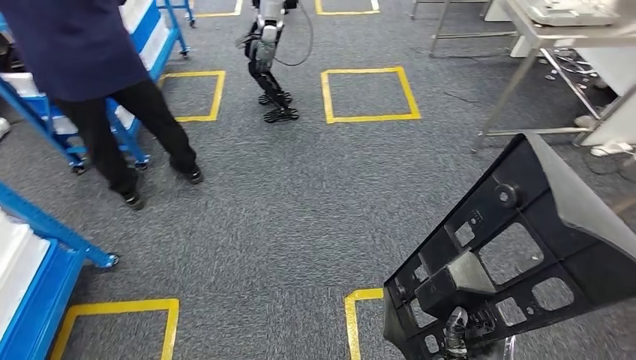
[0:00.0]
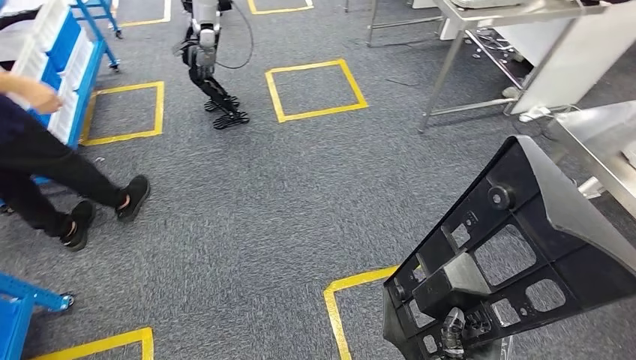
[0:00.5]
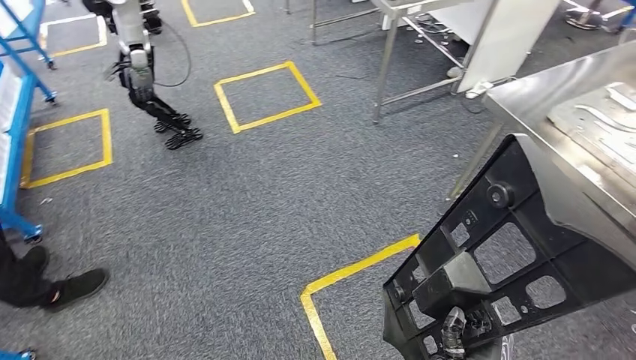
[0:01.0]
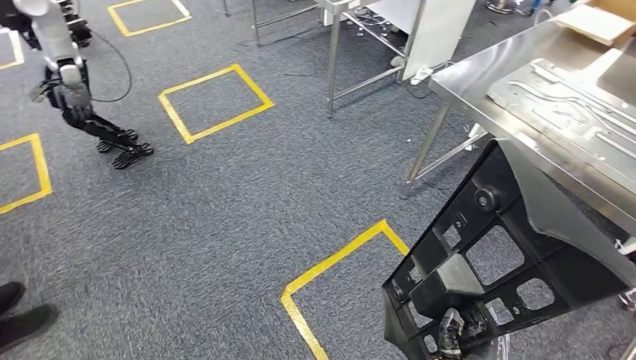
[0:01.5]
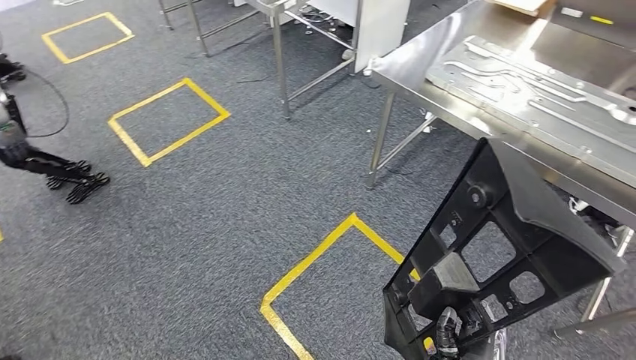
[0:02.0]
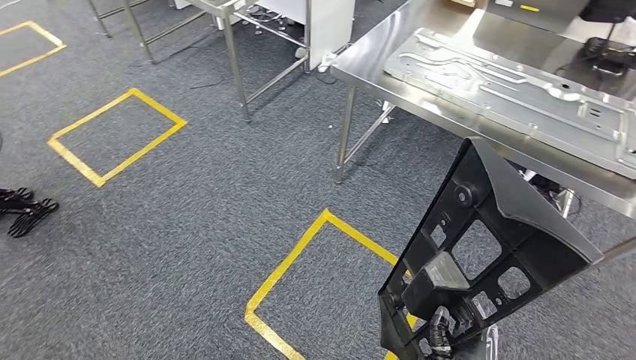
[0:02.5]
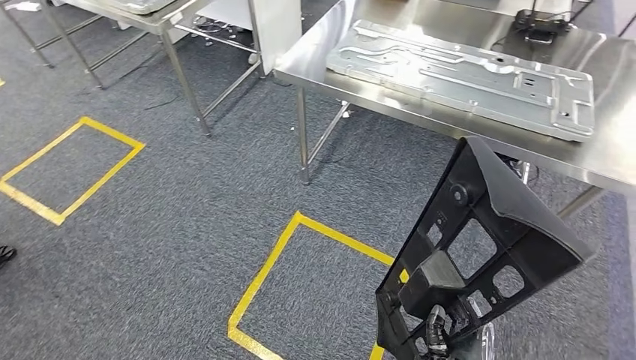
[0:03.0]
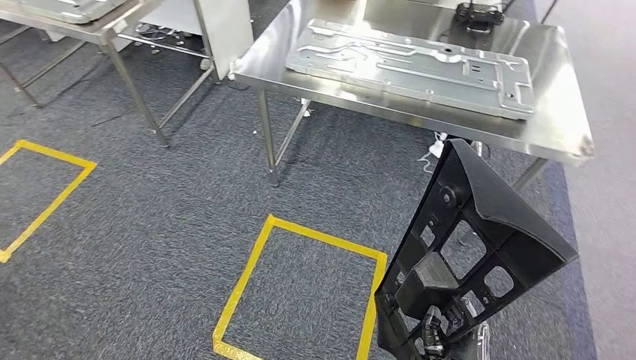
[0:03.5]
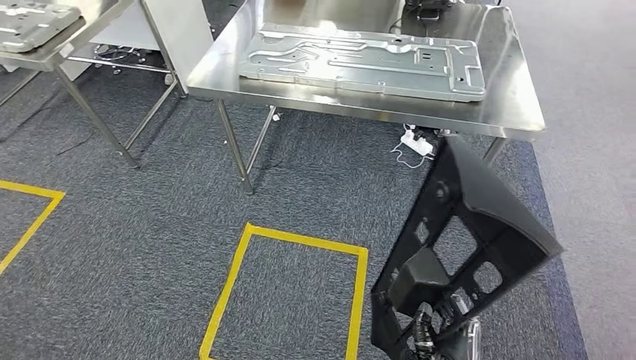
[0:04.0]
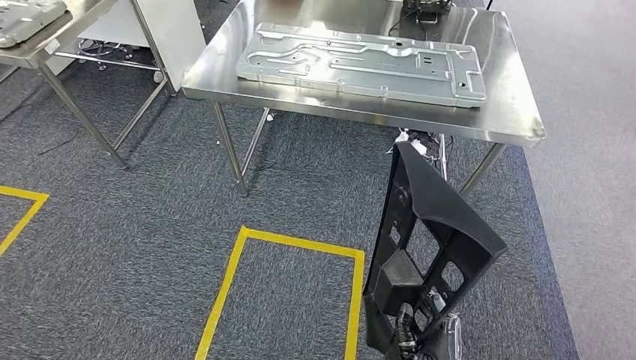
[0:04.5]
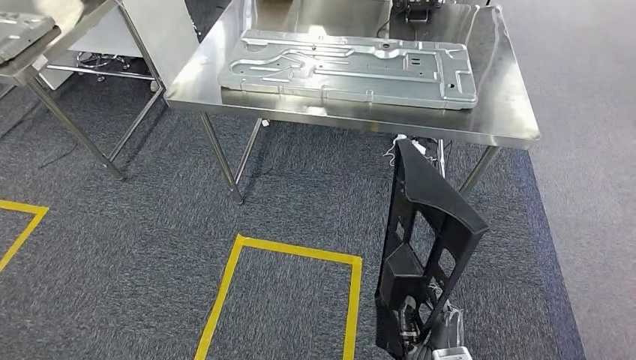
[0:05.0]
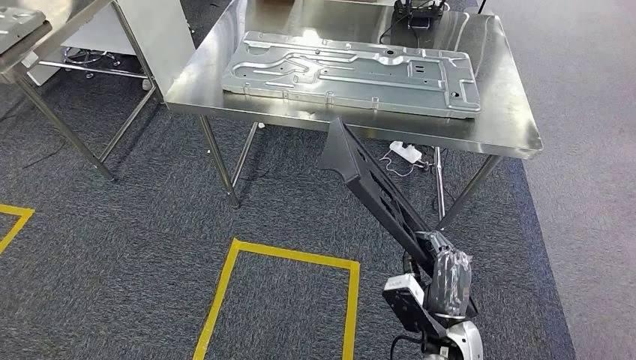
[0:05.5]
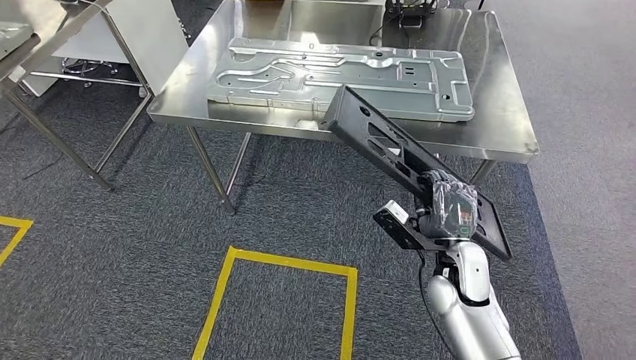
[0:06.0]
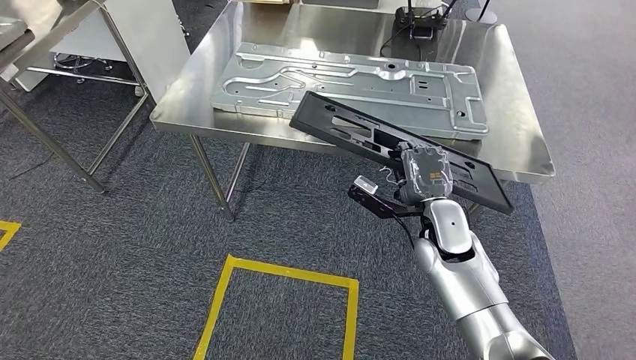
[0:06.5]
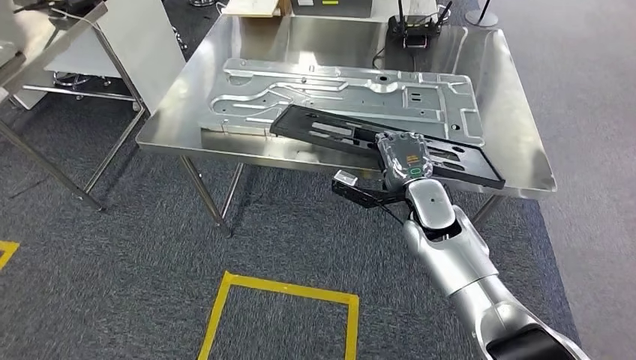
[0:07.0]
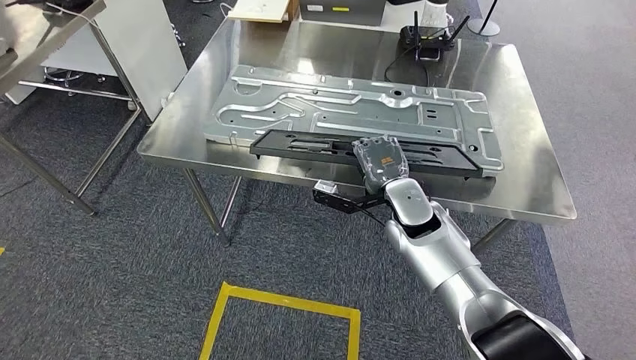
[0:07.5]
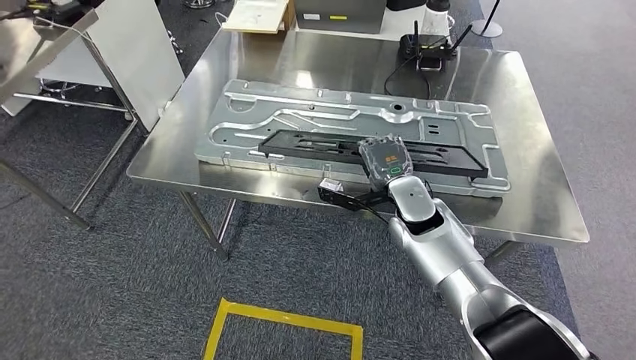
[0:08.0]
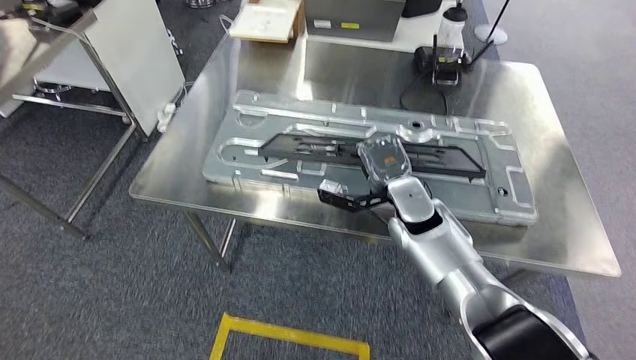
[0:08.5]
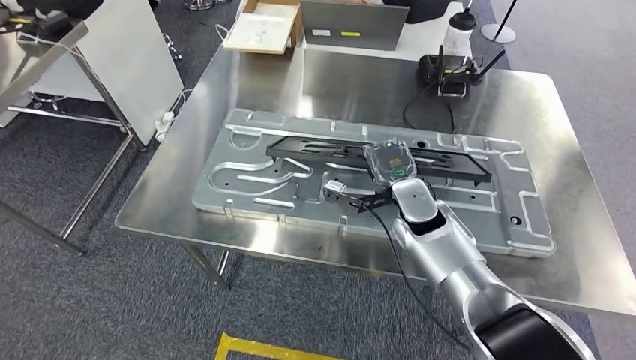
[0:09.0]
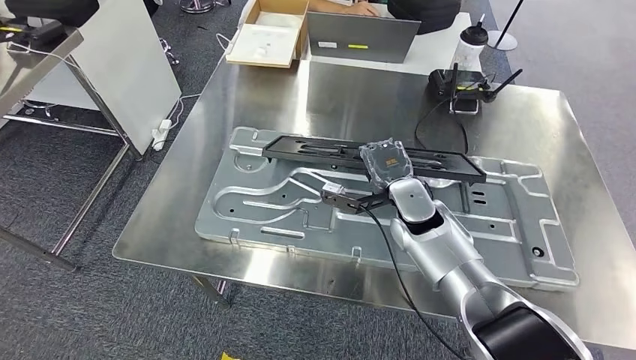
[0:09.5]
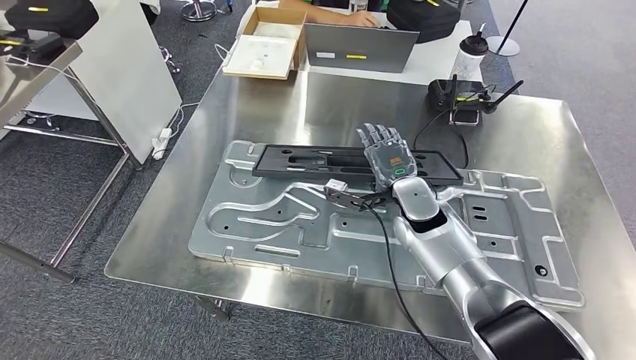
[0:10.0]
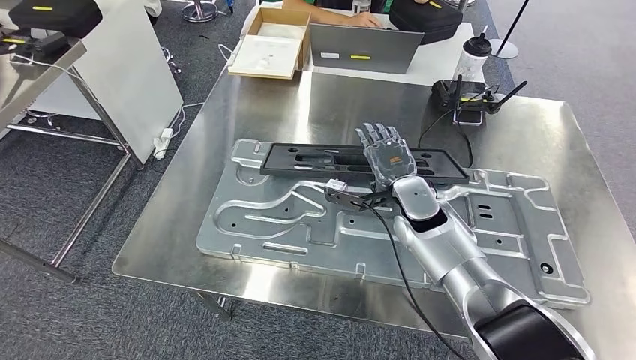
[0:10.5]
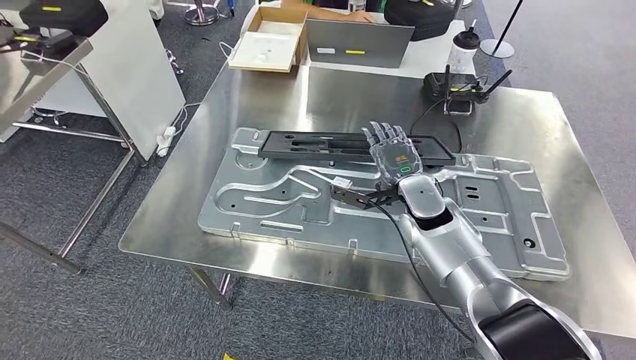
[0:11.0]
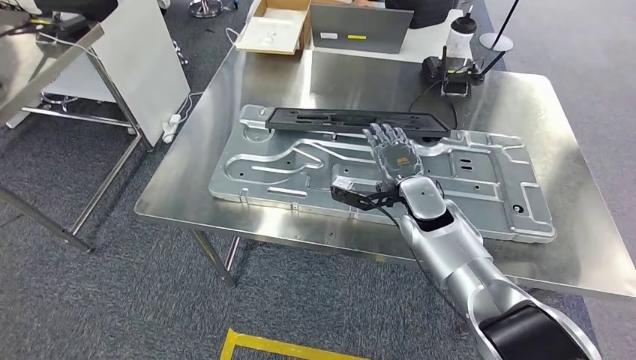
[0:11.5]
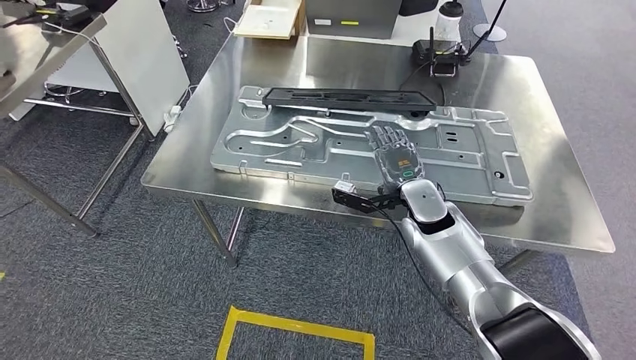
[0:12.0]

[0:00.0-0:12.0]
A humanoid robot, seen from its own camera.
Step, 0:00.0 to 0:06.5: Move the large material to the workbench.

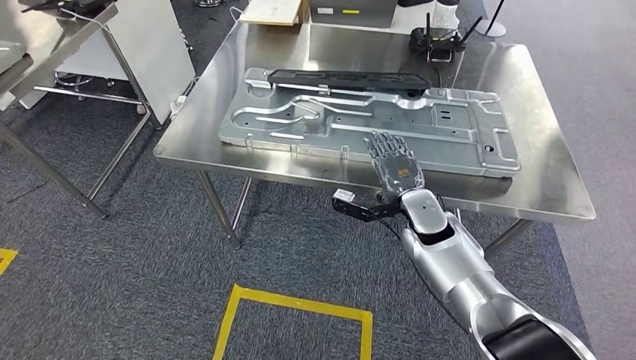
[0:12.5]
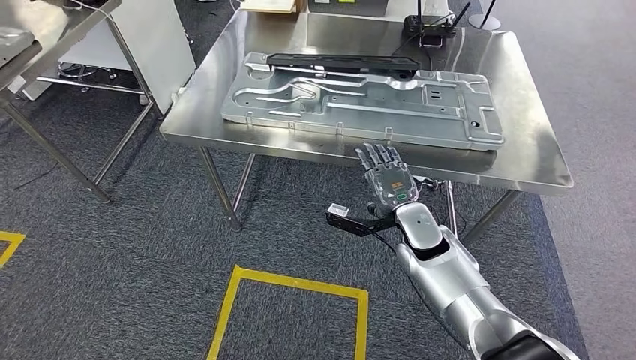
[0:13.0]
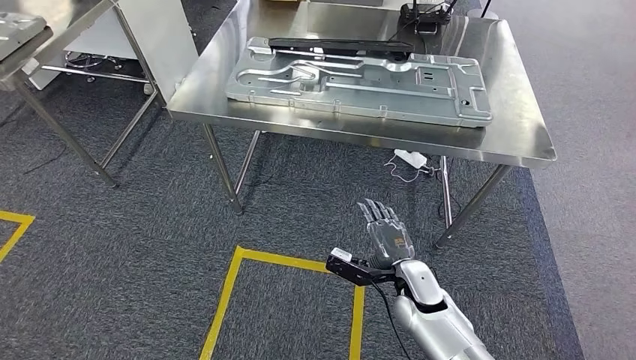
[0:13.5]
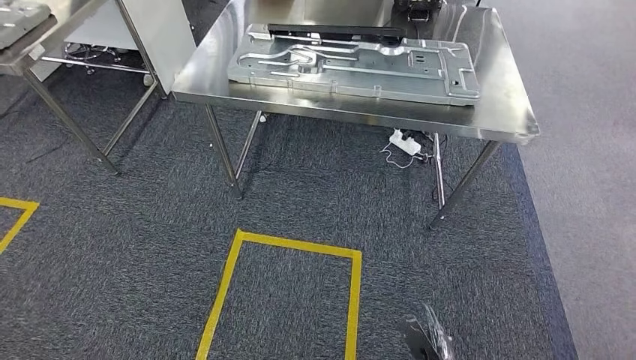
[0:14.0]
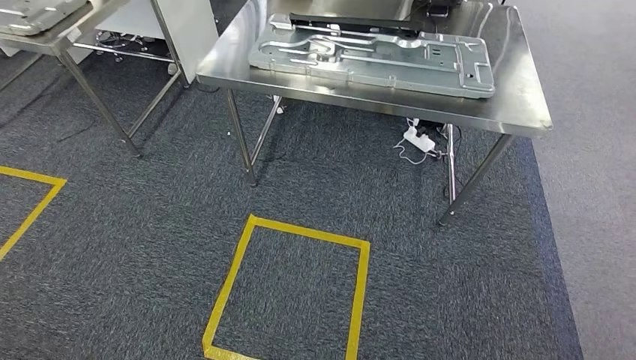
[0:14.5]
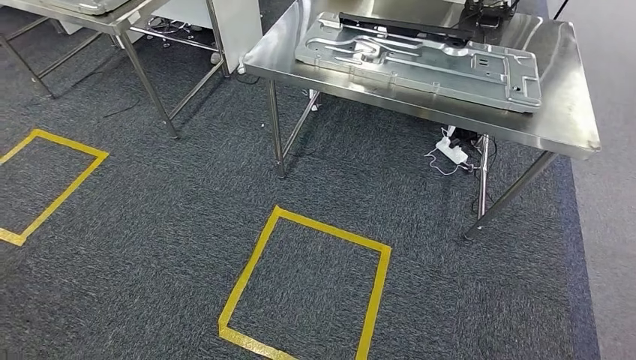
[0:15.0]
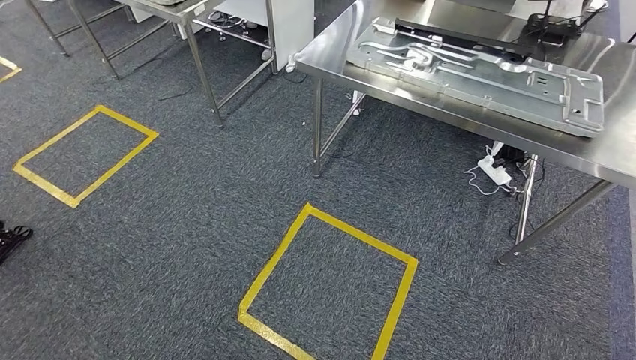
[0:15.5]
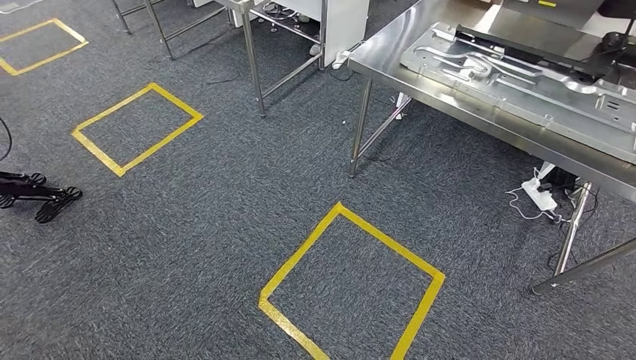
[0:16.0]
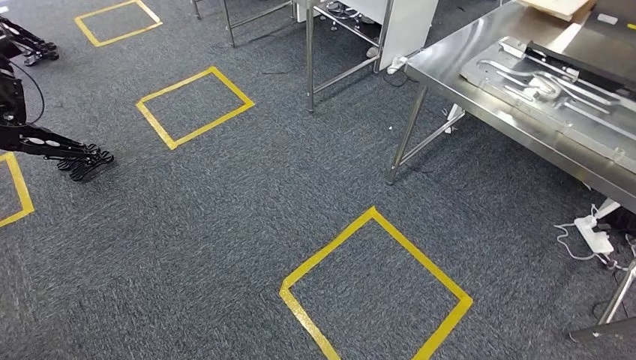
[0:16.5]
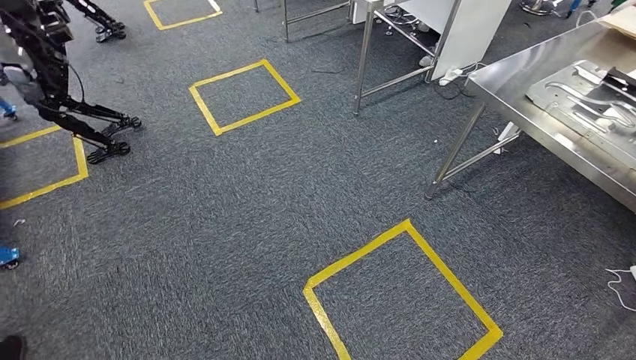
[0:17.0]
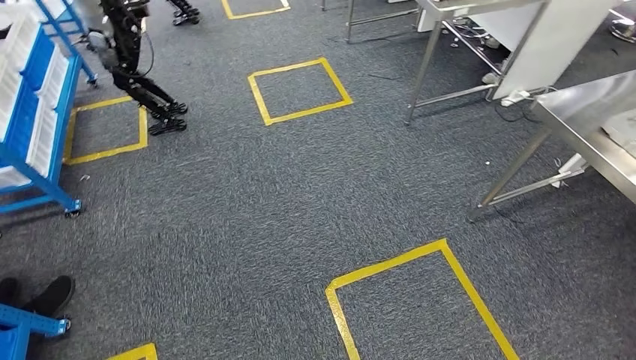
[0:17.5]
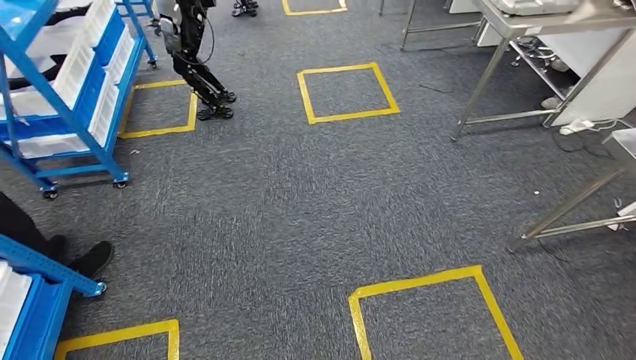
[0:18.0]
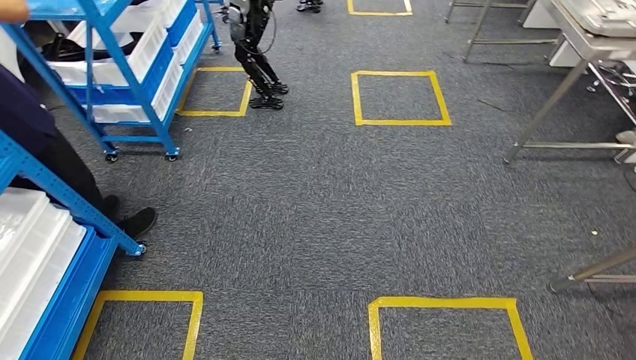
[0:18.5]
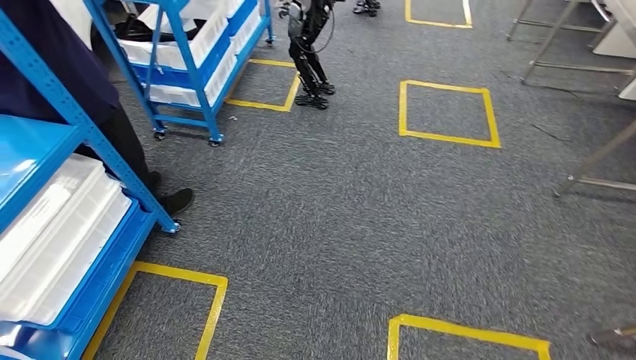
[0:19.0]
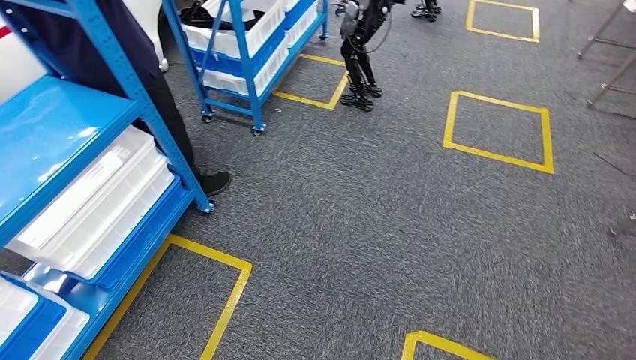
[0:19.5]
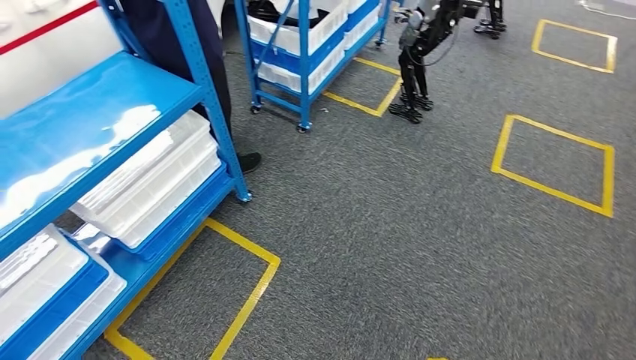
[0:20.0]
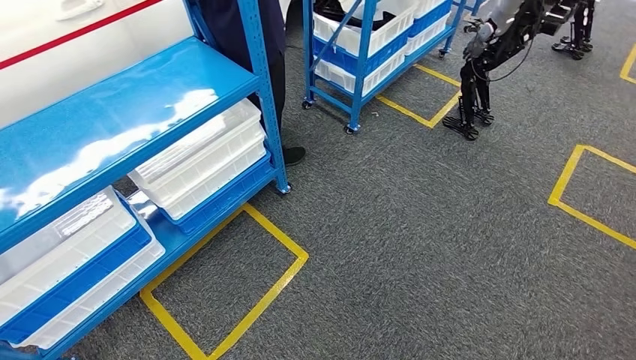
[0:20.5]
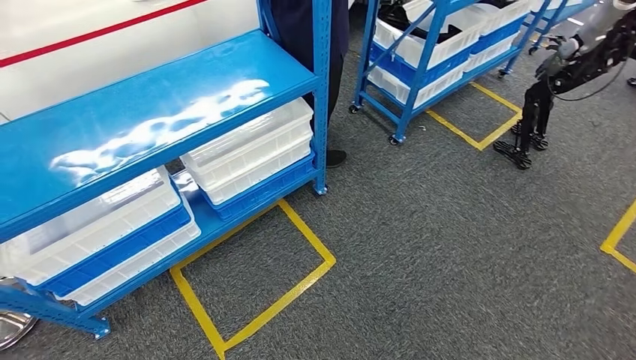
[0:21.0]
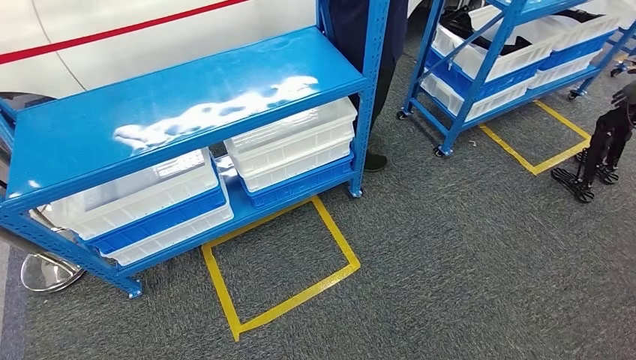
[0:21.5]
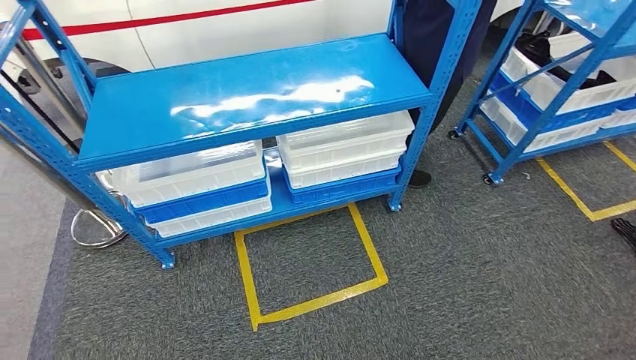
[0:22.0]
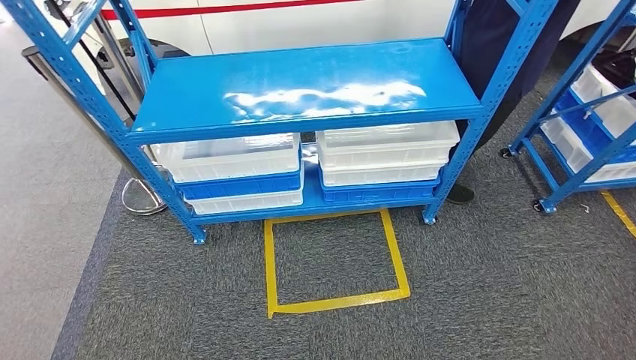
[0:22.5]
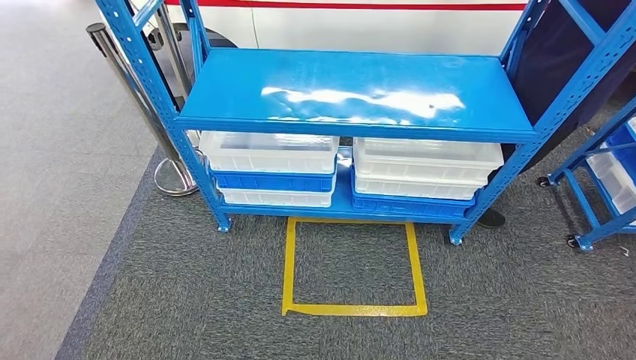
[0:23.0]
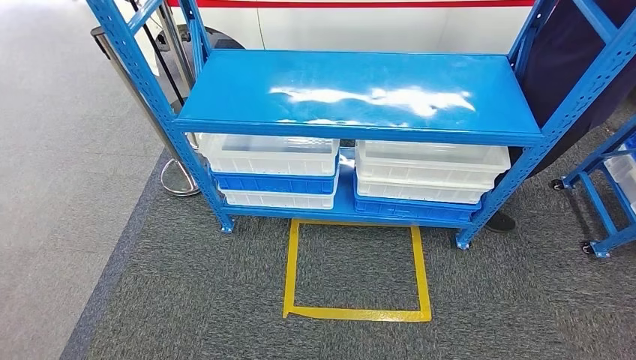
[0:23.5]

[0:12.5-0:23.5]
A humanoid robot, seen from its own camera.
Step, 0:12.5 to 0:14.5: Insert the large material into the corresponding slot on the workbench.
